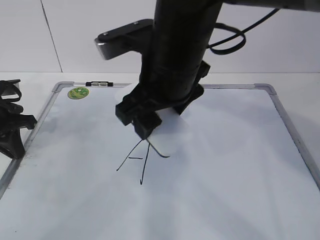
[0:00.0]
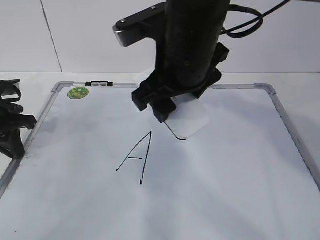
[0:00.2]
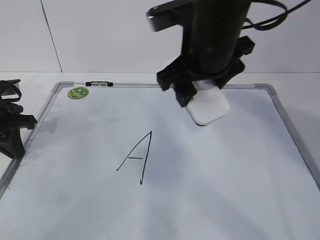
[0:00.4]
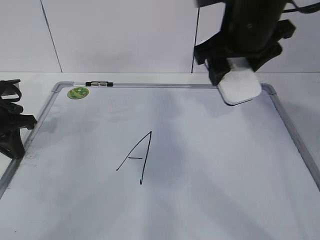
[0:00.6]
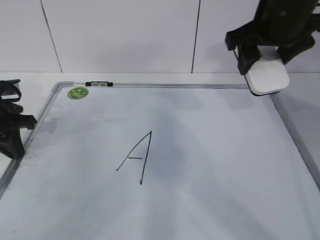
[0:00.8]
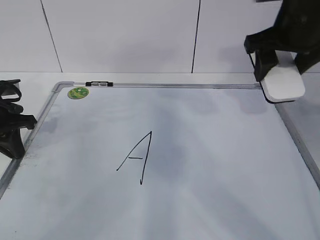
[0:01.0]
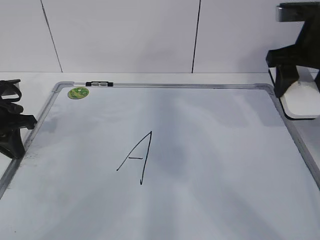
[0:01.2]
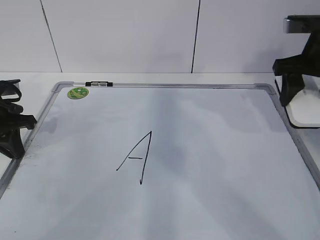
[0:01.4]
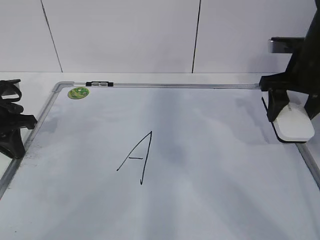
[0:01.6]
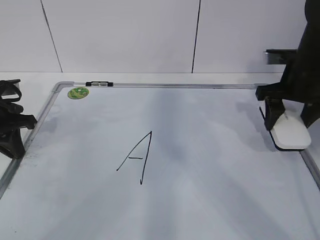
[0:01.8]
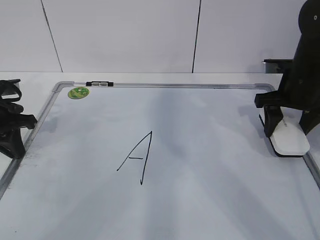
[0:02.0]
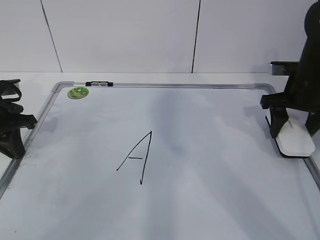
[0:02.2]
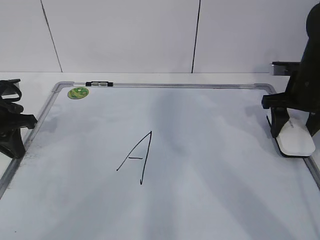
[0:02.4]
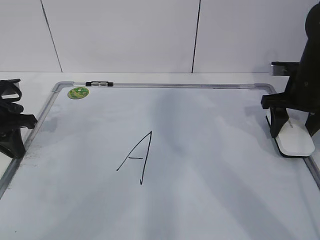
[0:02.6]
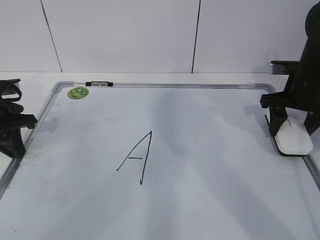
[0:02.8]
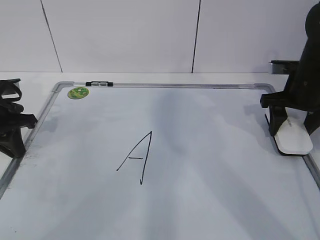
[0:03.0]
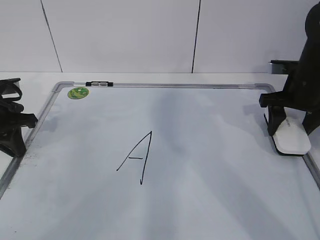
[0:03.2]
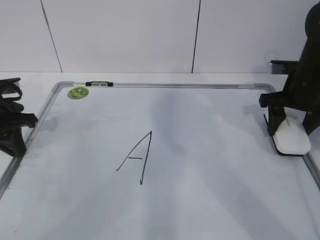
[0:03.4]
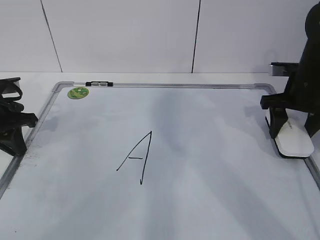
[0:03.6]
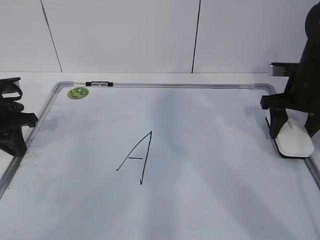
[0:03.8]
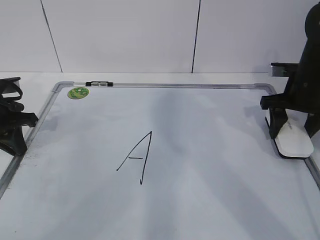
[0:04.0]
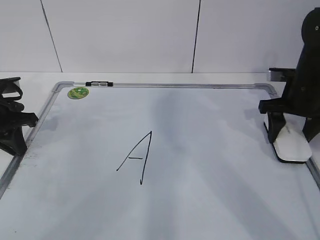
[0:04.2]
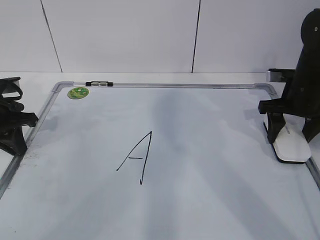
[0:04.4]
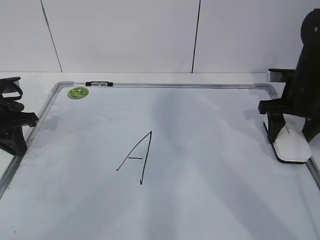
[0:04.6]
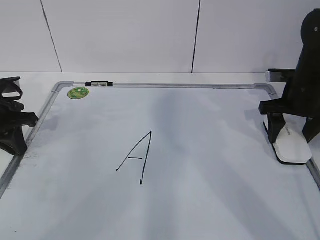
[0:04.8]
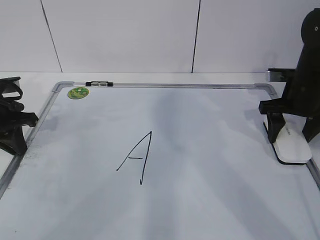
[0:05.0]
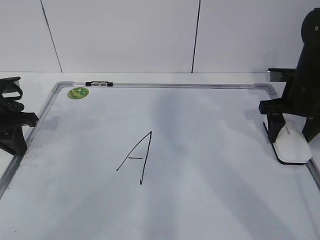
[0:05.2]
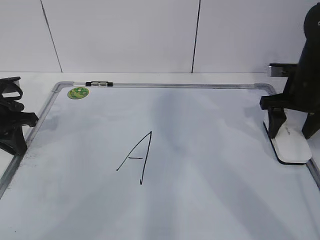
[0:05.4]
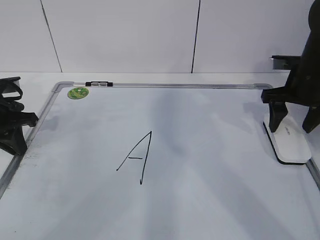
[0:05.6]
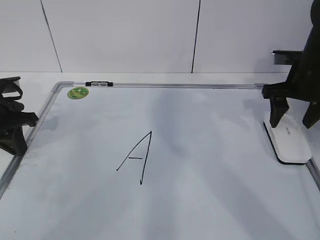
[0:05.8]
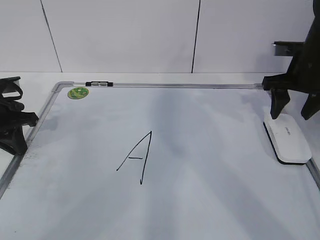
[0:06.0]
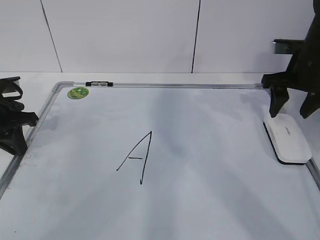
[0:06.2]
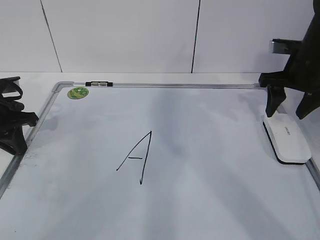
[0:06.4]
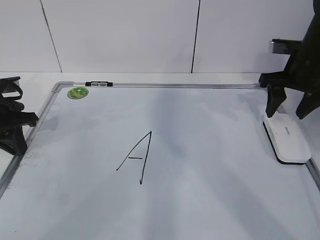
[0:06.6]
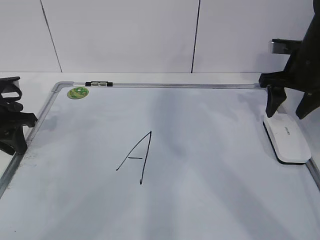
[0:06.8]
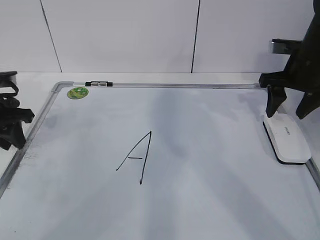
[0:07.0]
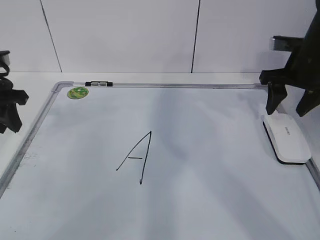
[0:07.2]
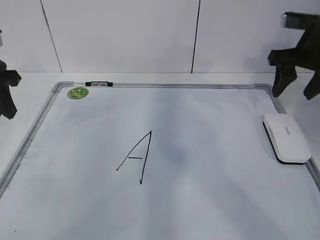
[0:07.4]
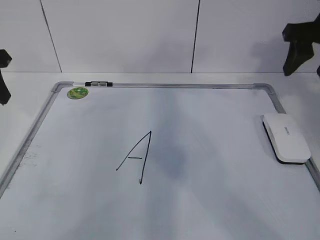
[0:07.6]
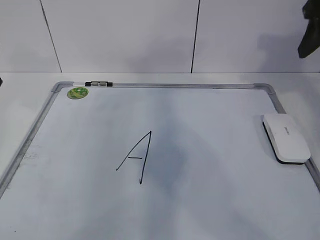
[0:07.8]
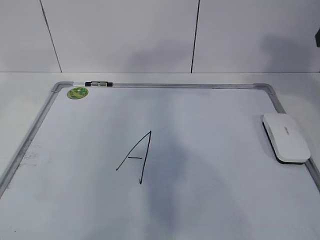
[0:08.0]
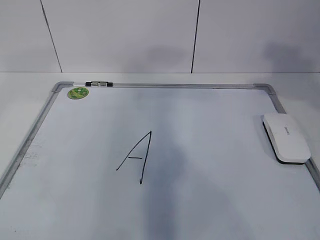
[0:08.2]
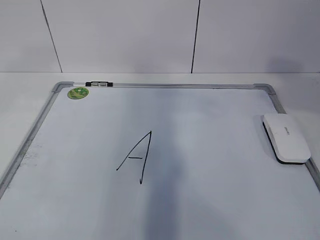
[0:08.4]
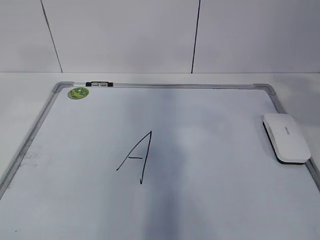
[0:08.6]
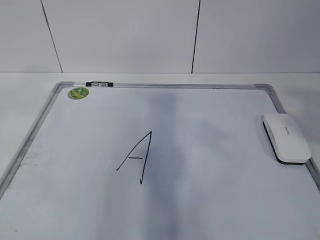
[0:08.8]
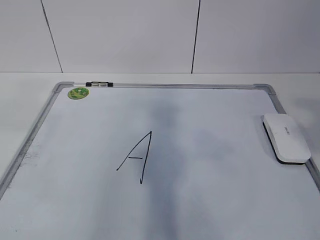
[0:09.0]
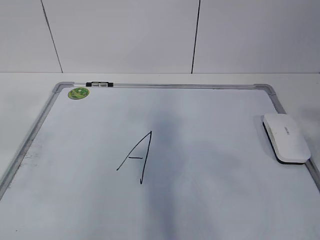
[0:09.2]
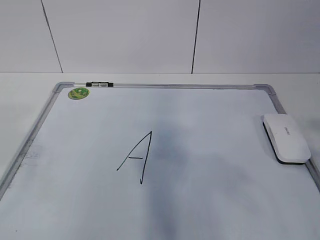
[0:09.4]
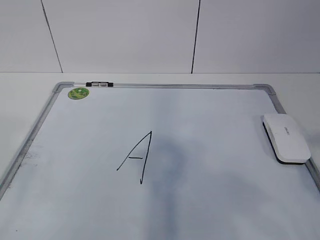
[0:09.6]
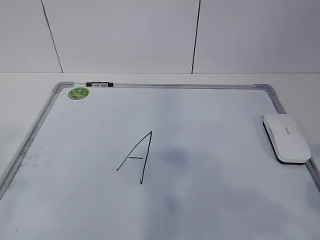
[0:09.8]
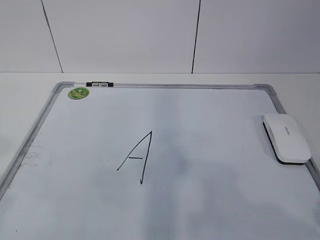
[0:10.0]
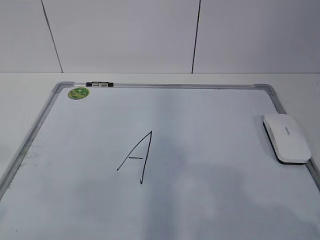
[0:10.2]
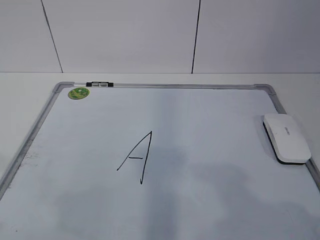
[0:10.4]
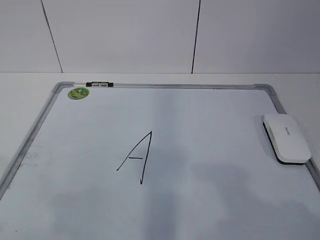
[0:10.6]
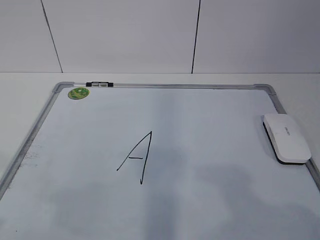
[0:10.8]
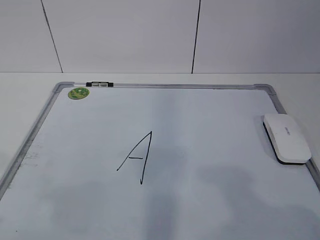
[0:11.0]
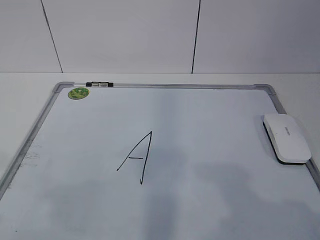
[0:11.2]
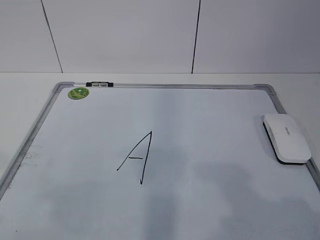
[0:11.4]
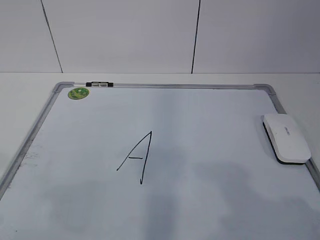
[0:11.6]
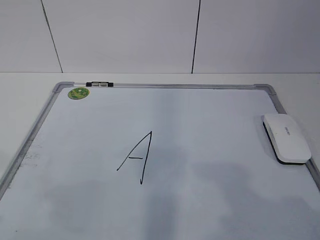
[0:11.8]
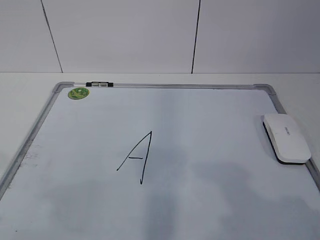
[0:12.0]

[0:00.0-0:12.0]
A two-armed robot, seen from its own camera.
Task of the whole recording: pick up the eraser on the blackboard and erase the letter "a".
0:00.0 to 0:01.6: The right gripper heads to the right, covering roughly 25 cm.
0:01.6 to 0:03.0: The right gripper moves downward, some 5 cm.
0:03.0 to 0:04.4: Neither gripper changes place.
0:04.4 to 0:06.0: The right gripper opens, then closes once more.
0:06.0 to 0:07.6: The grippers both shift upward by some 10 cm. The left gripper opens.
0:07.6 to 0:09.0: The right gripper is displaced backward by roughly 30 cm. Meanwhile the left gripper shifts approximately 25 cm backward and upward.
0:09.0 to 0:10.4: The two grippers go approximately 15 cm downward and backward.

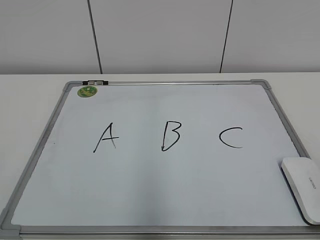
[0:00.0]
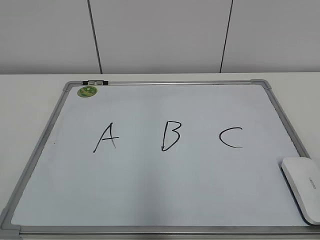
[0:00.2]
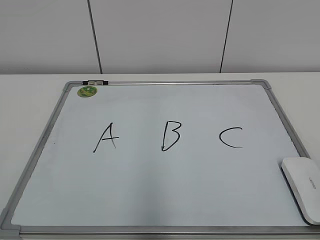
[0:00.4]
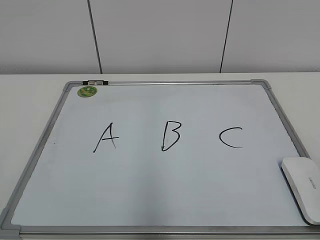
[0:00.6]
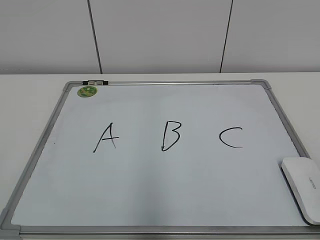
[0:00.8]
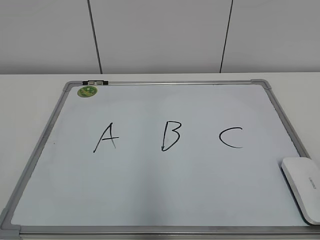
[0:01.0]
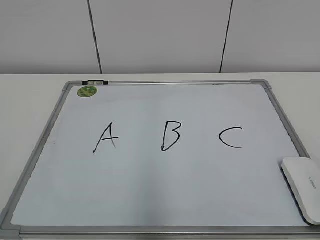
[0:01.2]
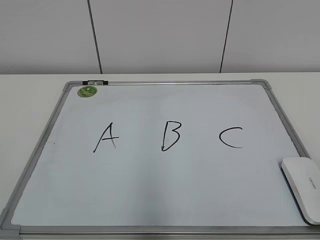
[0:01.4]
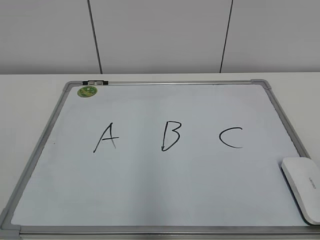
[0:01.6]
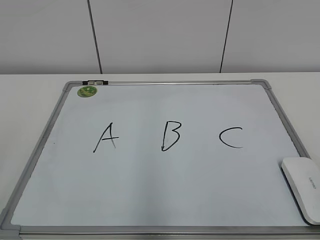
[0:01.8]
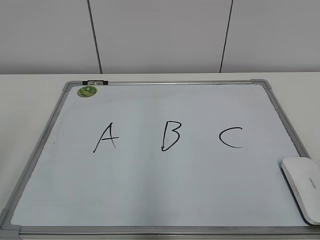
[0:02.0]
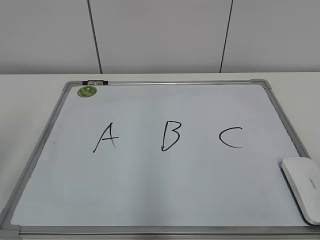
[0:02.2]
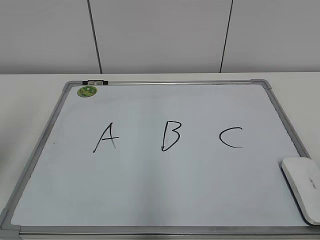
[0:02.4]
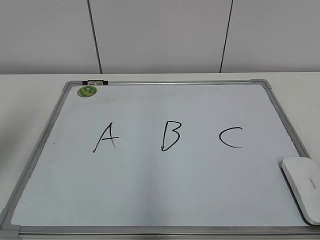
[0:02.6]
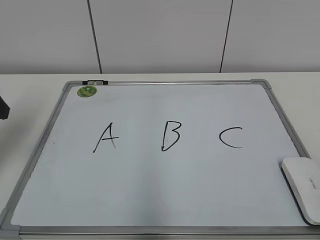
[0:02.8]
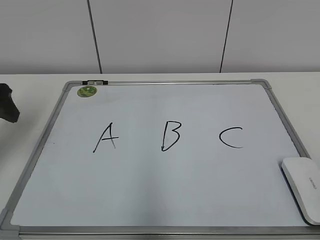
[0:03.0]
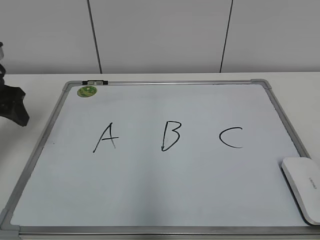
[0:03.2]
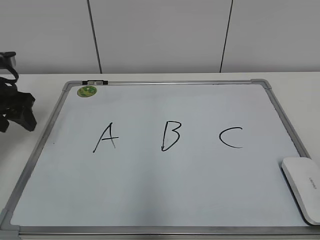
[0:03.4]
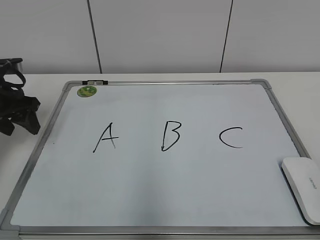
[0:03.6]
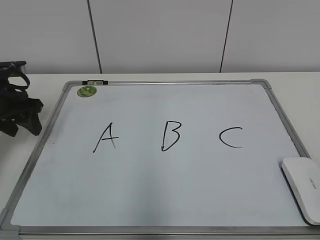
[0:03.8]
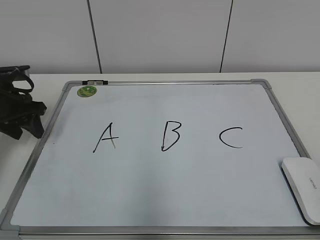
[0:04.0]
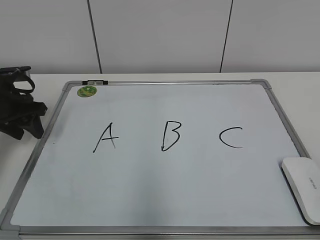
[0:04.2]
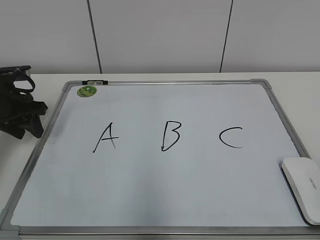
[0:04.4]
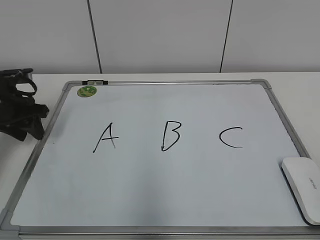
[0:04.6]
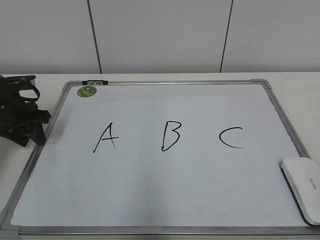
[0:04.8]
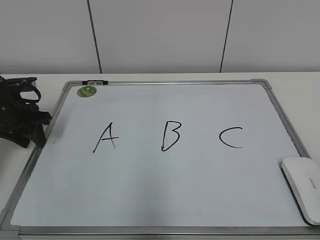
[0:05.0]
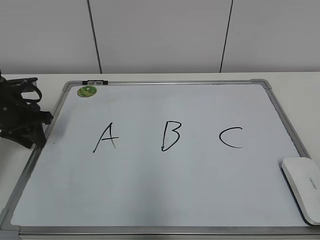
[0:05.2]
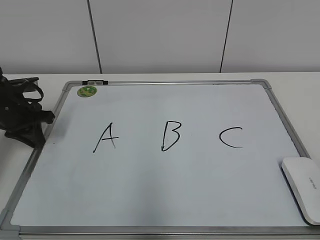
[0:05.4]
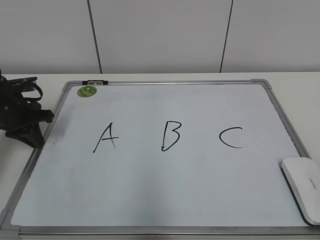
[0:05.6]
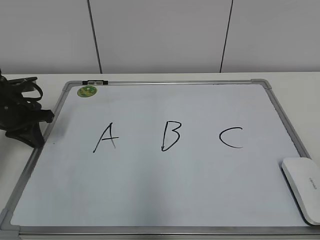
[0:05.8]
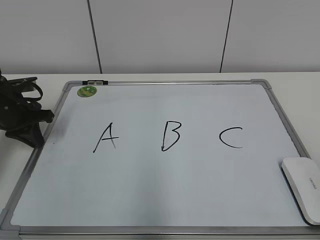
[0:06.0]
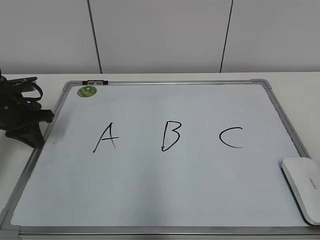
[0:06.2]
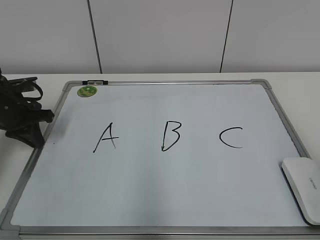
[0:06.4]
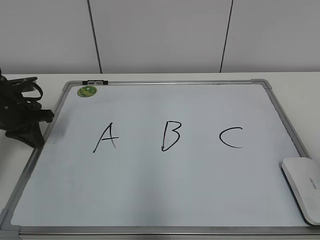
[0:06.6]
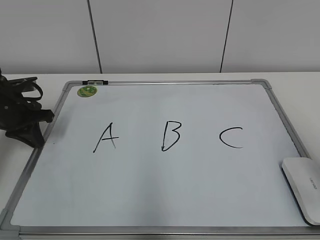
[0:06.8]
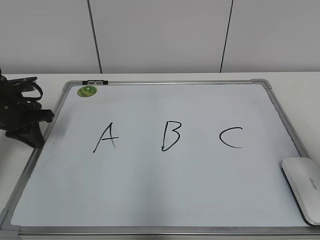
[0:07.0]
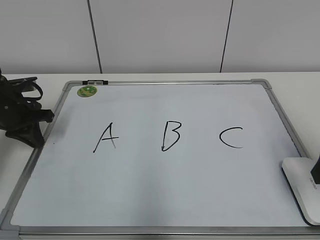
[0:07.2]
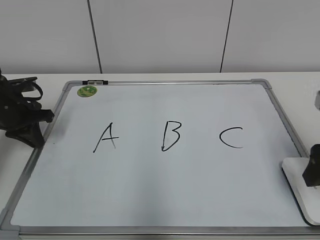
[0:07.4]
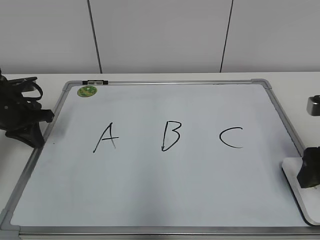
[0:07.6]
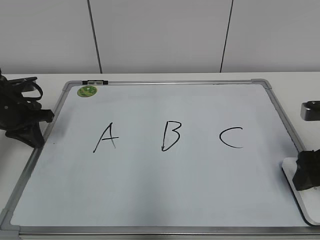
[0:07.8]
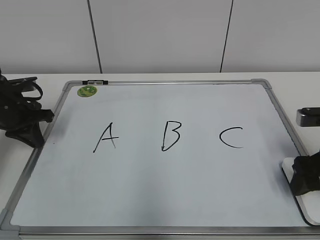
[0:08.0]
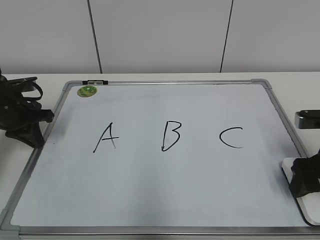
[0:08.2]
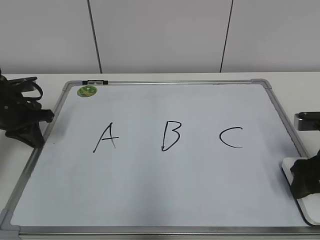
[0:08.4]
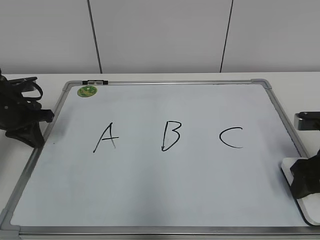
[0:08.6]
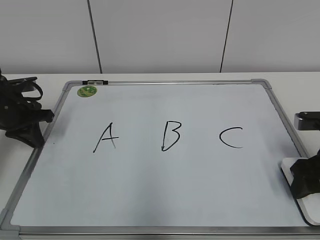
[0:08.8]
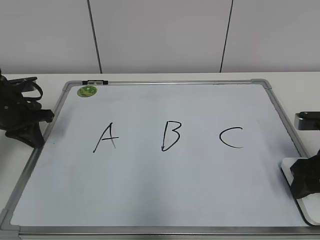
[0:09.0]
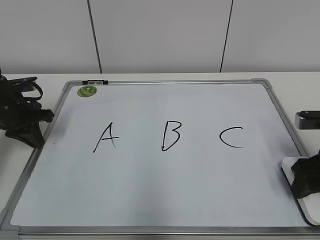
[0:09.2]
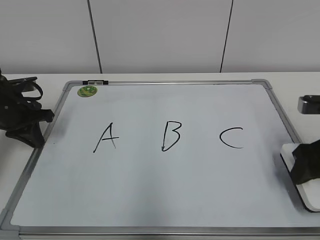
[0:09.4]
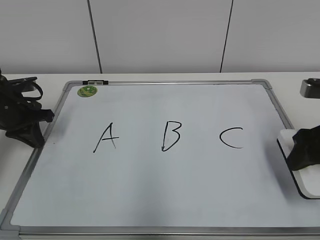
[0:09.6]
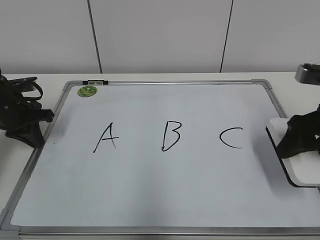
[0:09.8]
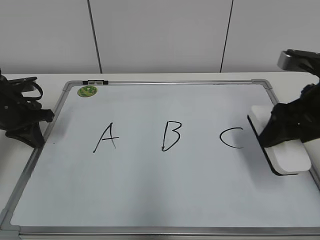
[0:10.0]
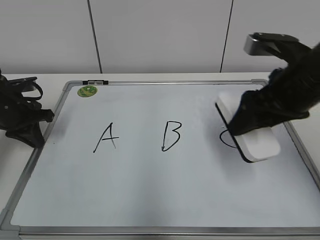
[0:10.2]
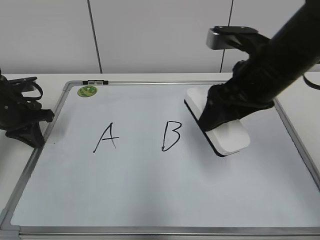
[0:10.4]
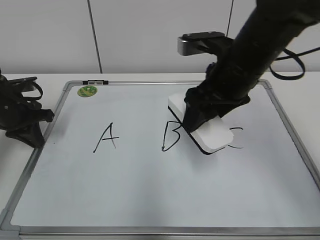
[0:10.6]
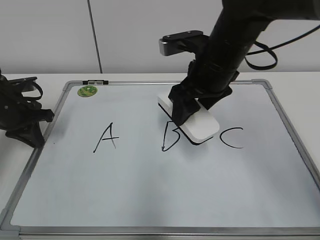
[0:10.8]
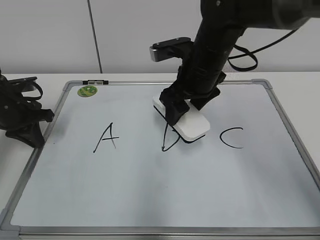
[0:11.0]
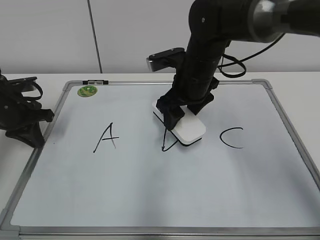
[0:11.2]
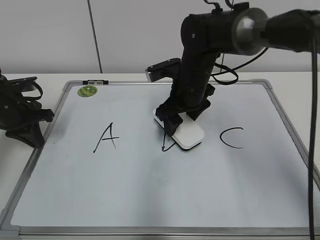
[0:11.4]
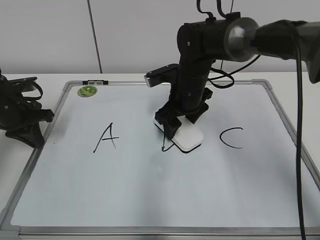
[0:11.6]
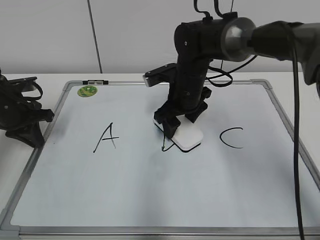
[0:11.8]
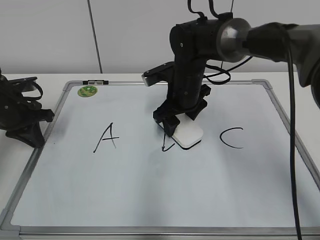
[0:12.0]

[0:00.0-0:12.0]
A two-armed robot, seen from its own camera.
Task of the whole recording: pick up the eraser on the blackboard and erase the letter "B".
Step, 0:00.0 to 0:05.8: Hold the drawing board steady with your left hand.
Step, 0:06.0 to 0:09.4: Grab the eraser with your right hand.
0:01.6 to 0:03.0: The left gripper travels forward by roughly 30 cm.
0:03.0 to 0:04.4: The left gripper travels downward and forward by about 10 cm, and closes its fingers.
0:04.4 to 0:06.0: The left gripper closes up.
0:06.0 to 0:07.6: The right gripper is displaced forward and downward by some 25 cm, and opens.
0:07.6 to 0:09.0: The right gripper closes up.
0:09.0 to 0:10.4: The right gripper shifts about 20 cm to the left and upward.
0:10.4 to 0:12.0: The right gripper travels forward, downward and to the left by roughly 20 cm.
